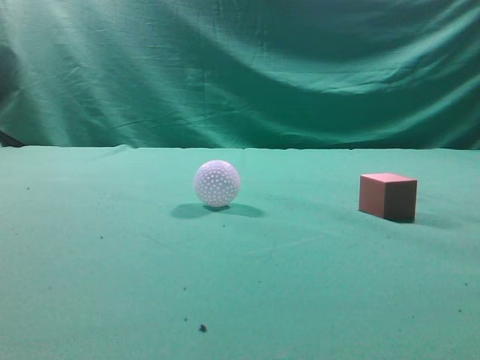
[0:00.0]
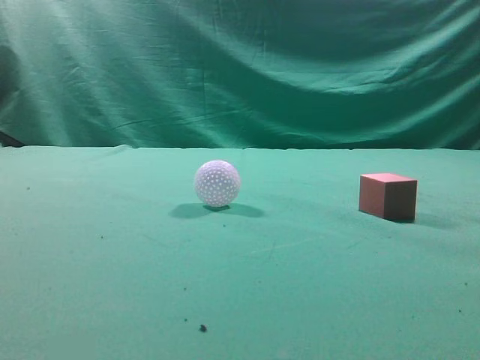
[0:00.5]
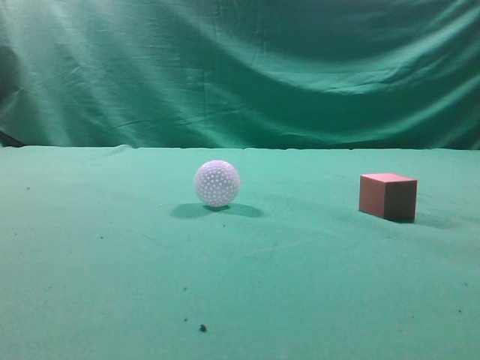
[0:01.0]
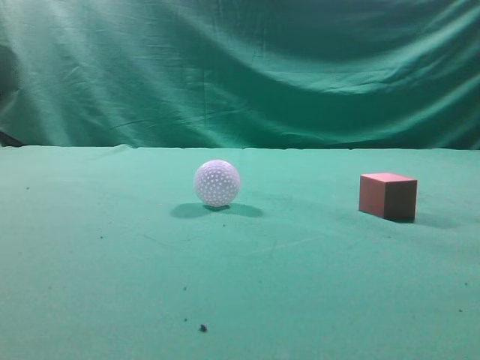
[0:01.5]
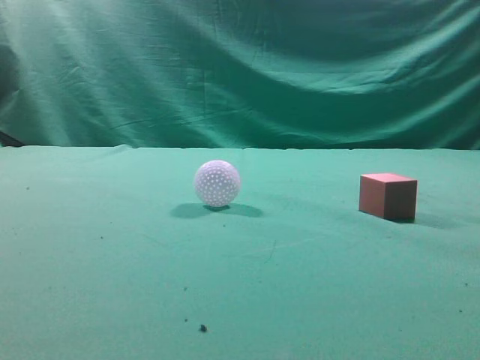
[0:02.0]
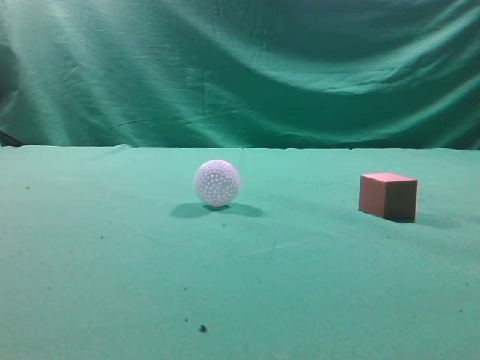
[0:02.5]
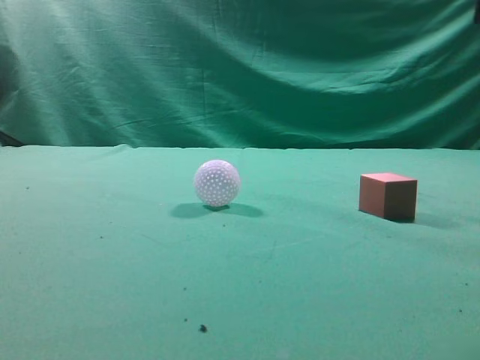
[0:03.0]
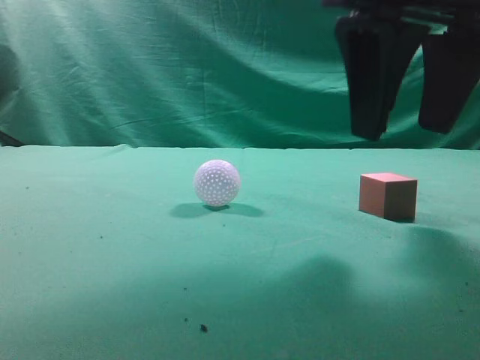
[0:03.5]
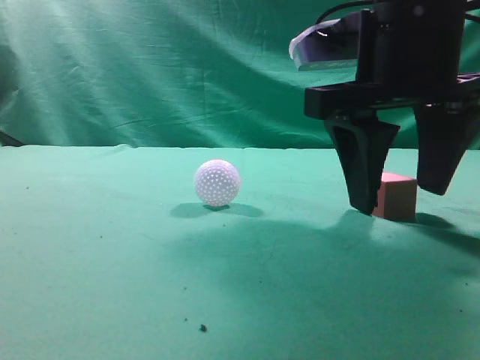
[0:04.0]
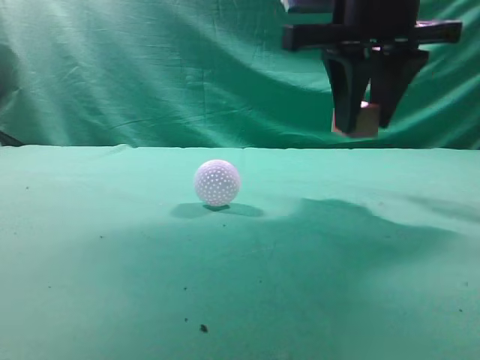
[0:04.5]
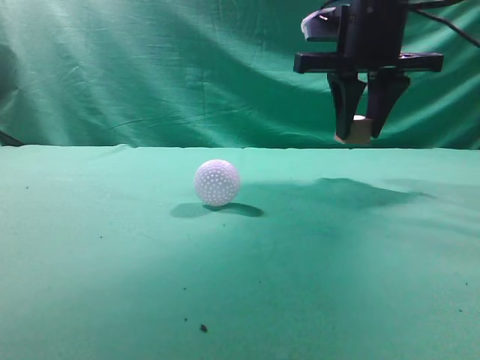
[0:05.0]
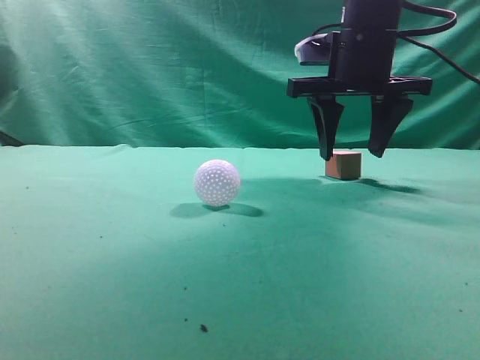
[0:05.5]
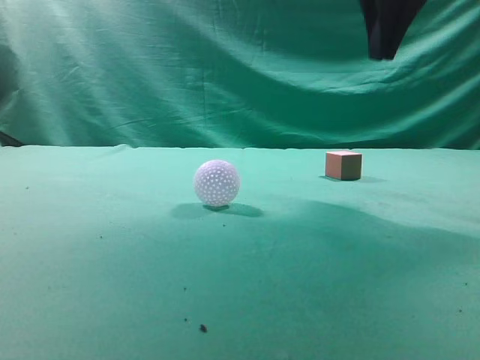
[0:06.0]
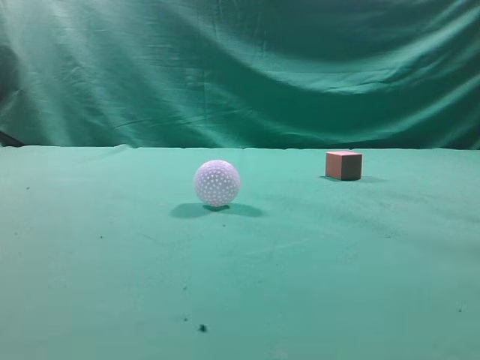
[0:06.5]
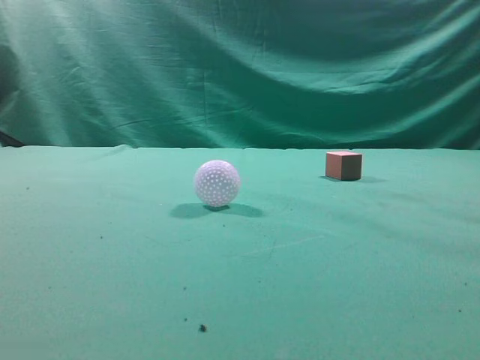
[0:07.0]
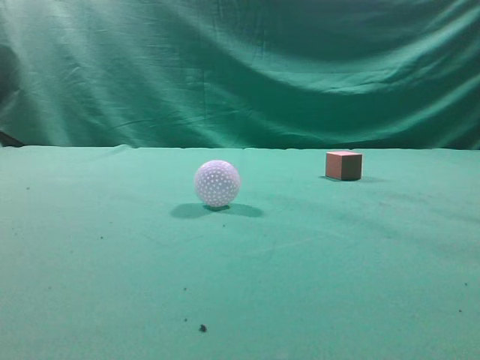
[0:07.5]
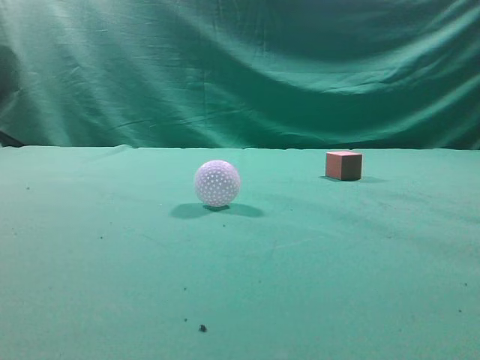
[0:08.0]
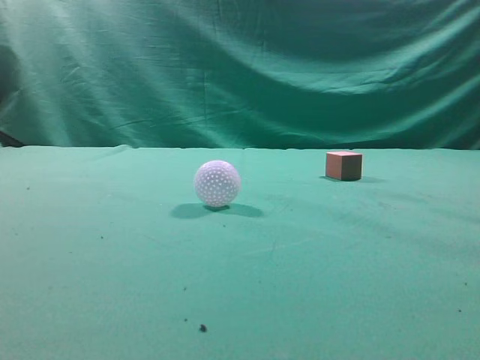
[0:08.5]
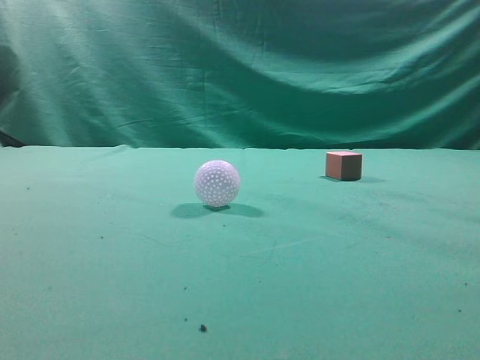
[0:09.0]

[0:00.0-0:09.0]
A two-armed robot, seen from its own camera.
Task of the whole recording: pick up the cube block and place it in another position on the table.
Step, 0:00.0 to 0:04.0: Pick up the small cube.
Step, 0:04.5 to 0:05.5: Place the small cube on the ahead of the table.
0:02.0 to 0:04.5: The right gripper shifts roughly 30 cm forward and to the left, and opens its fingers.
0:04.5 to 0:07.0: The right gripper travels backward, to the right and upward by some 25 cm, and closes up.
